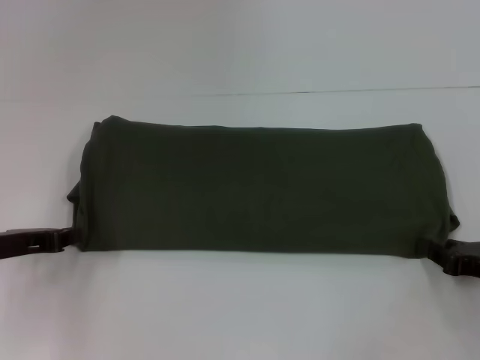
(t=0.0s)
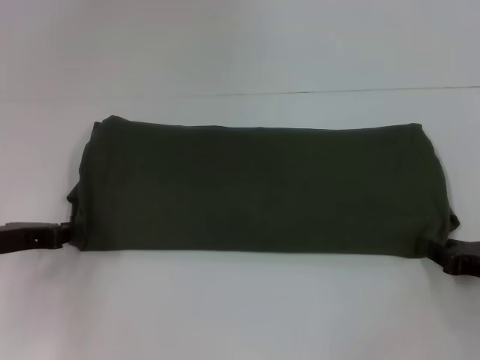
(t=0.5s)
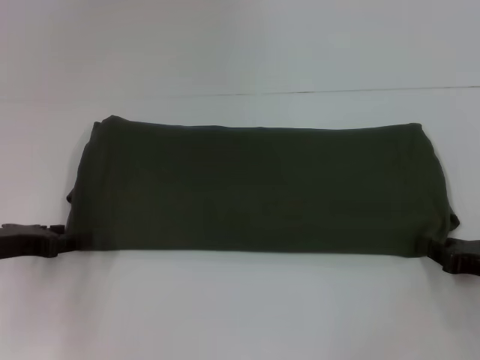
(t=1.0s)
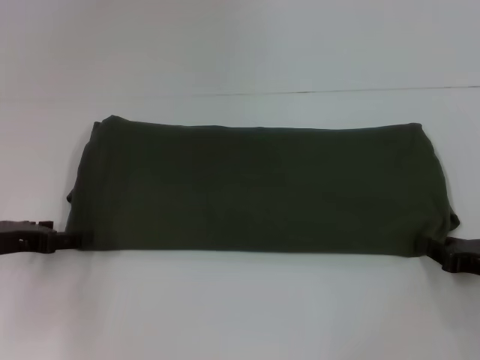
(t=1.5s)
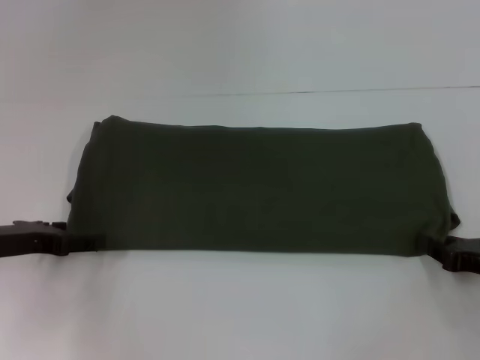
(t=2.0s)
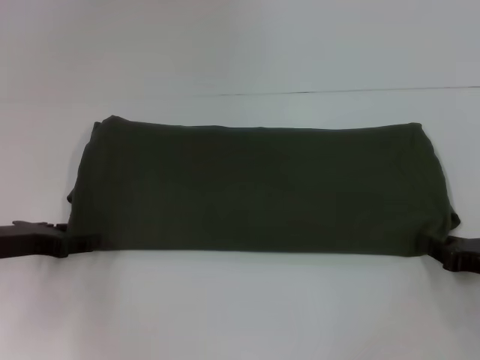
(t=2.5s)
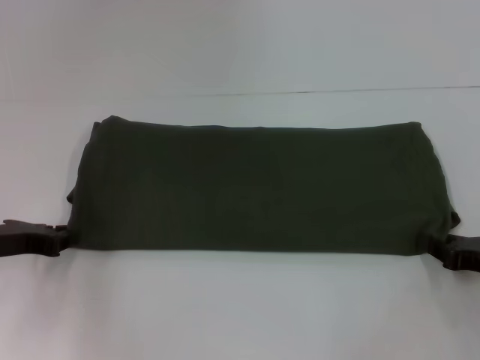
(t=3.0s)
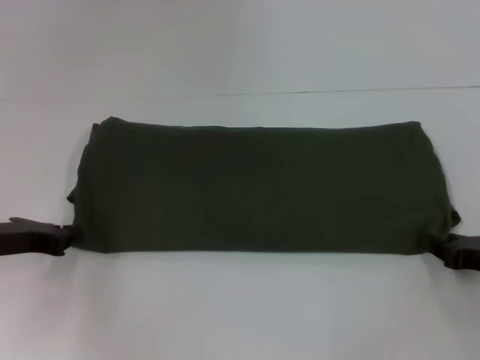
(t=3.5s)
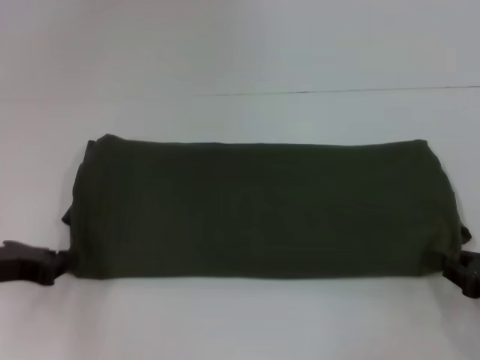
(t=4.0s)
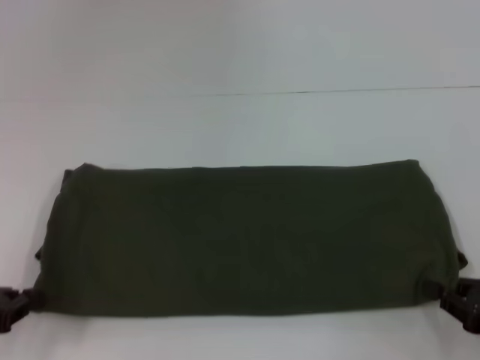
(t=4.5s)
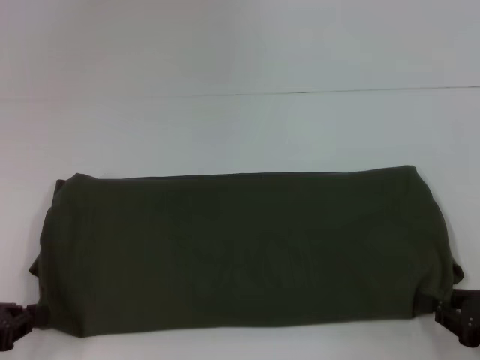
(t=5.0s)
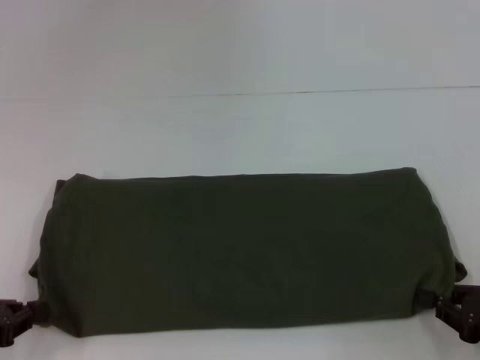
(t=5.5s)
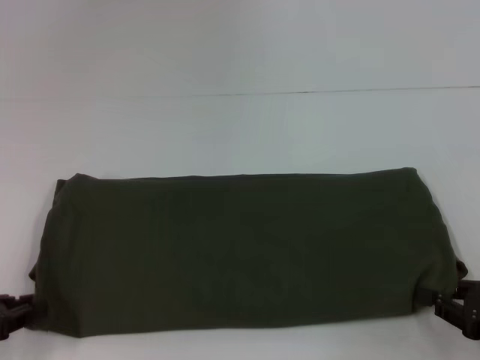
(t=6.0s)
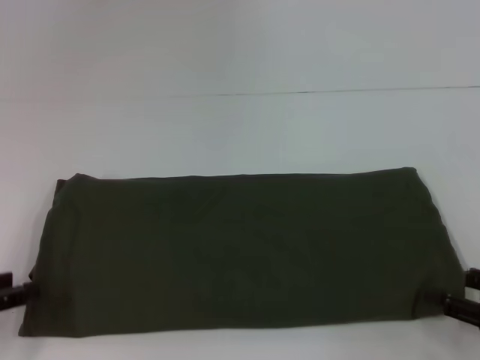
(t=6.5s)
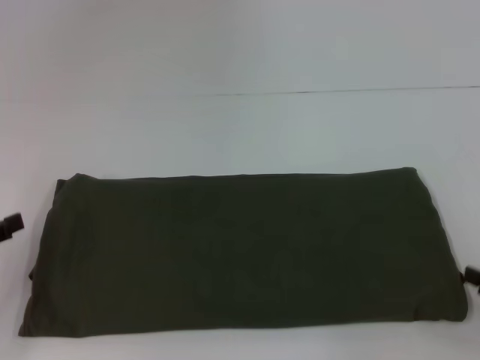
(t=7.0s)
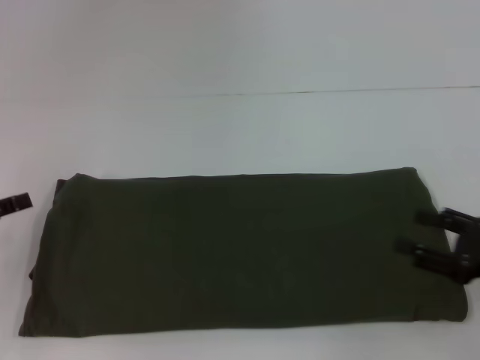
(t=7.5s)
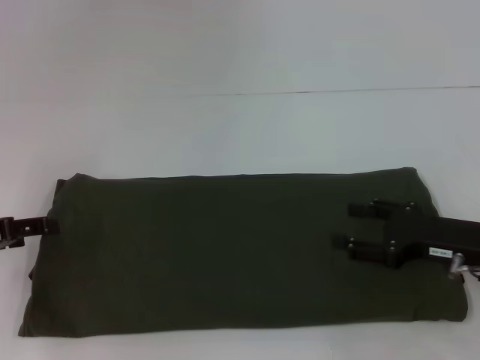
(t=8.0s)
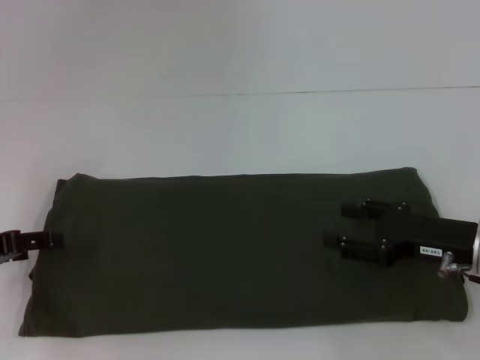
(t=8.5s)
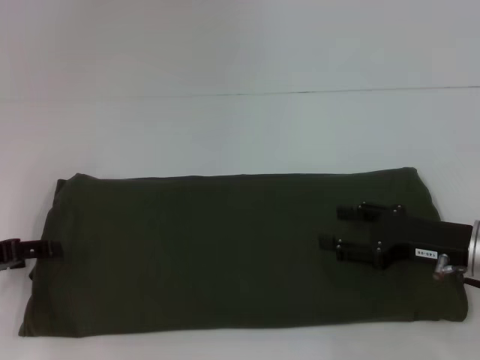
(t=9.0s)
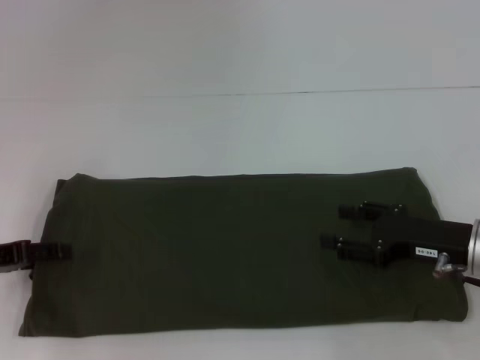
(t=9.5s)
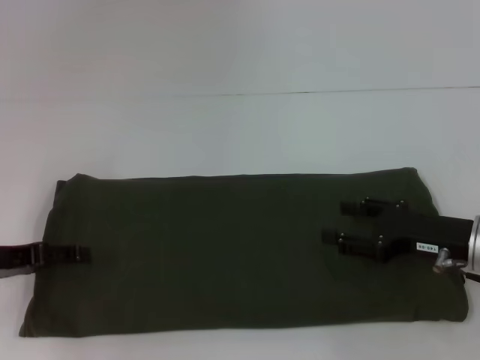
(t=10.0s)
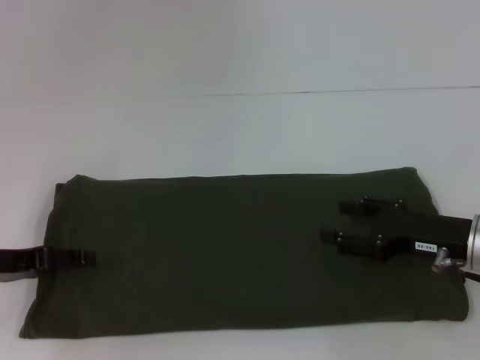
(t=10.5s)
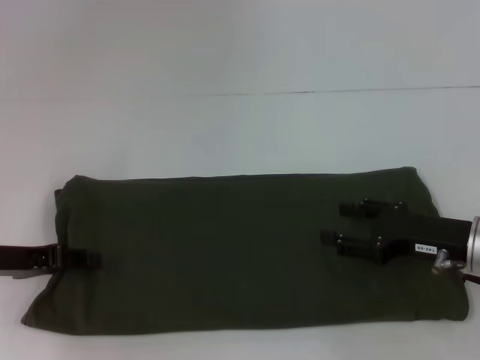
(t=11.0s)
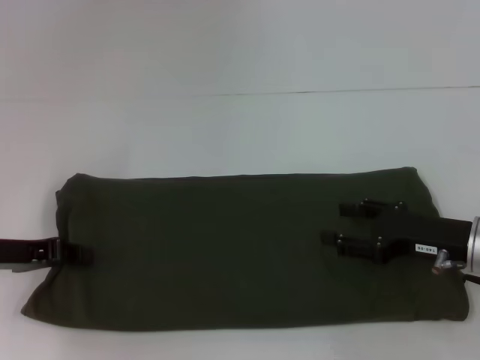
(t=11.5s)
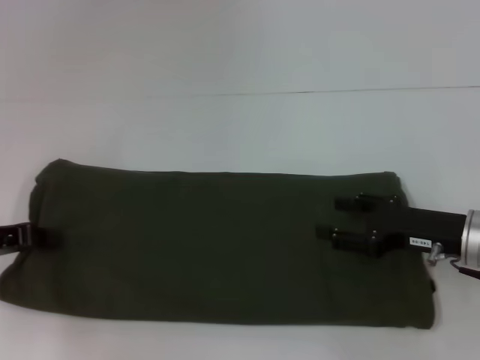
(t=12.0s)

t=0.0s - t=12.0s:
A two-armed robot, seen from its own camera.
t=0.0s - t=2.0s: The left gripper opens.
t=2.0s - t=4.0s: The left gripper closes its fingers.
t=4.0s - t=6.0s: The left gripper is displaced backward by roughly 5 cm.
t=6.0s - t=8.0s: The left gripper travels forward by approximately 5 cm, and opens up. Meanwhile the right gripper moves forward and to the left, about 10 cm, and opens up.
t=8.0s - t=10.0s: The grippers move only a little.
t=10.0s - t=12.0s: The left gripper closes.

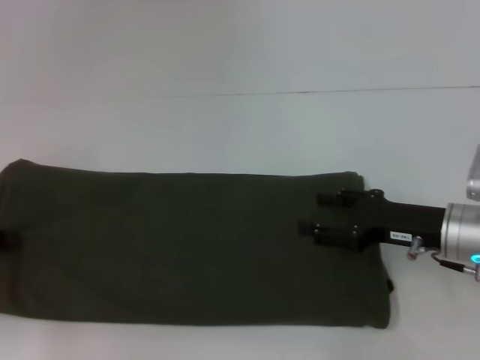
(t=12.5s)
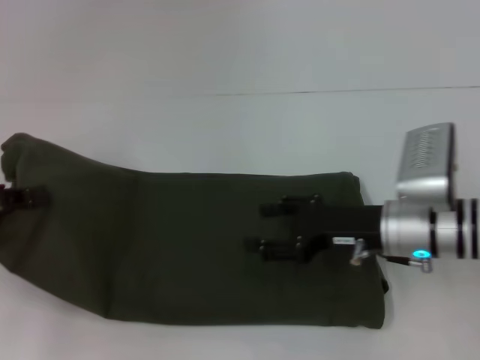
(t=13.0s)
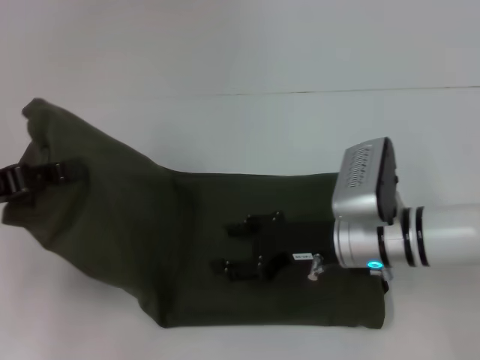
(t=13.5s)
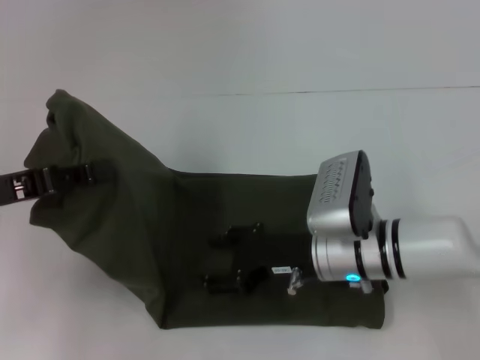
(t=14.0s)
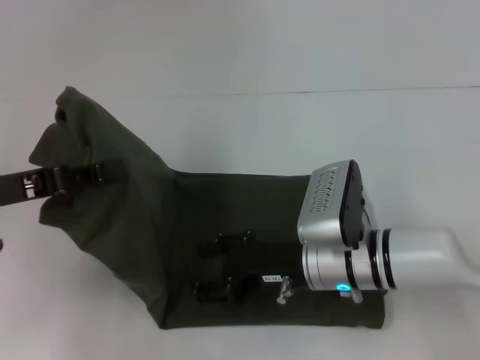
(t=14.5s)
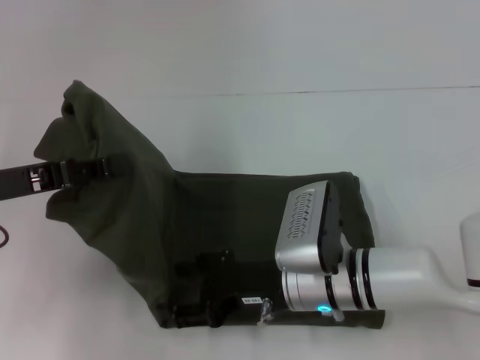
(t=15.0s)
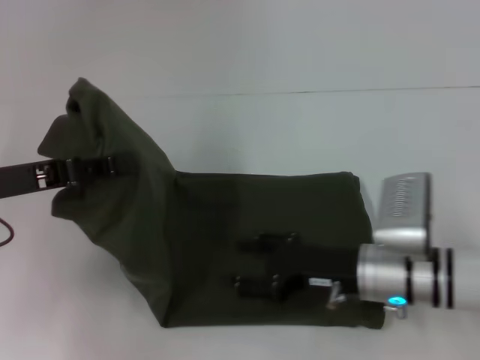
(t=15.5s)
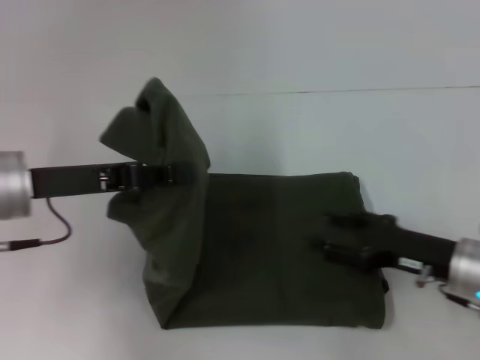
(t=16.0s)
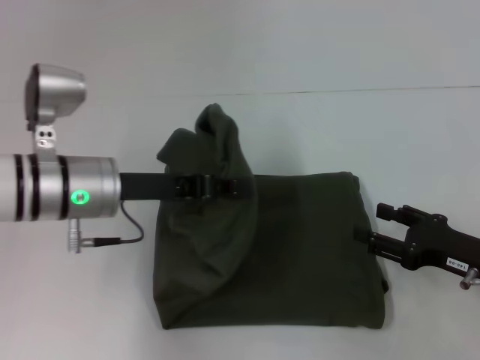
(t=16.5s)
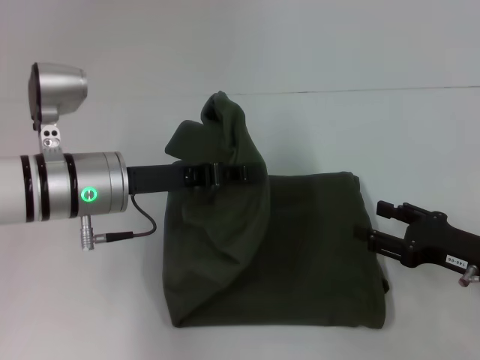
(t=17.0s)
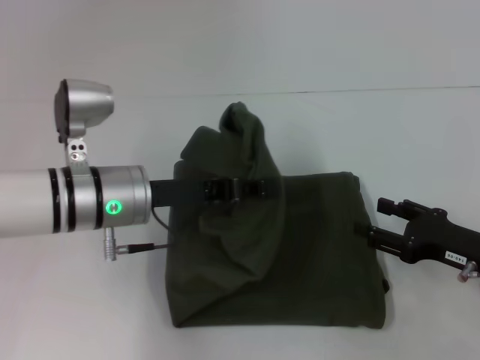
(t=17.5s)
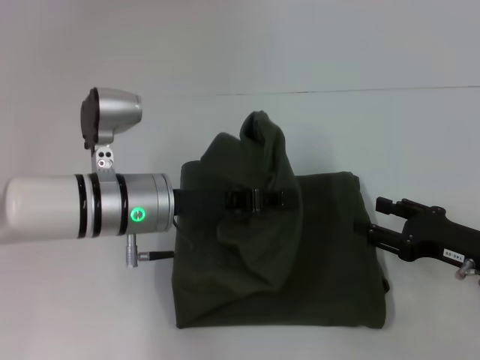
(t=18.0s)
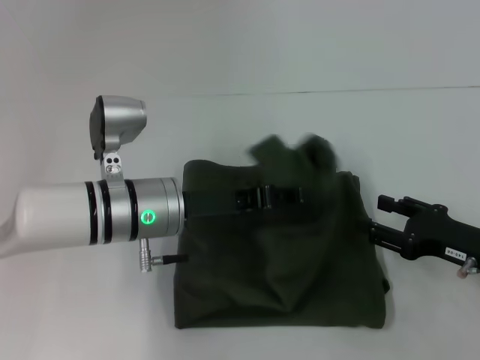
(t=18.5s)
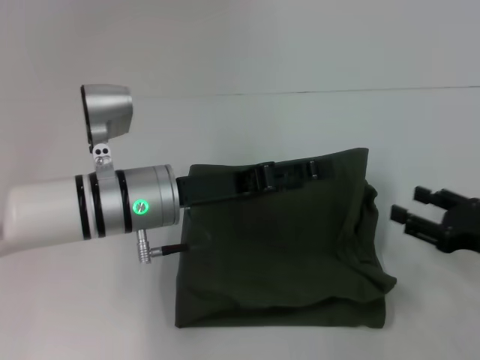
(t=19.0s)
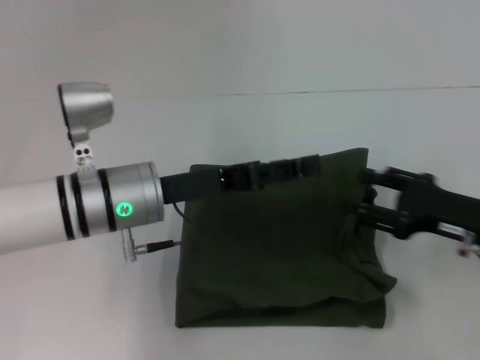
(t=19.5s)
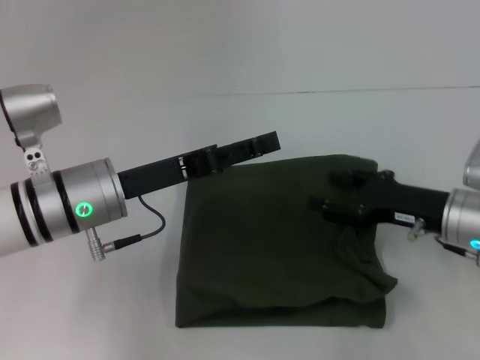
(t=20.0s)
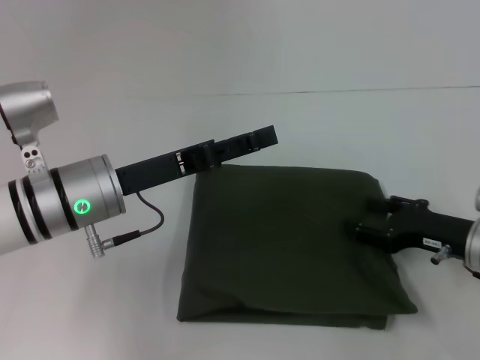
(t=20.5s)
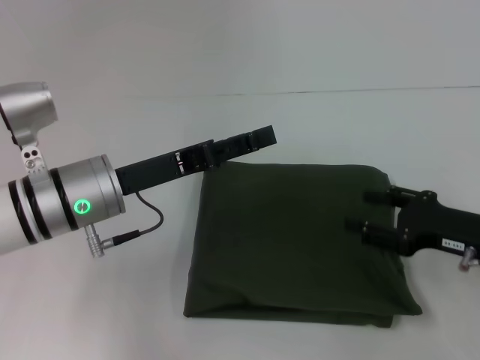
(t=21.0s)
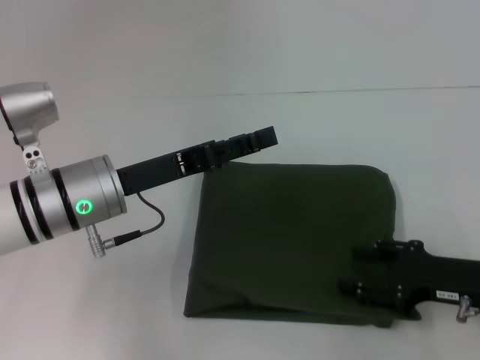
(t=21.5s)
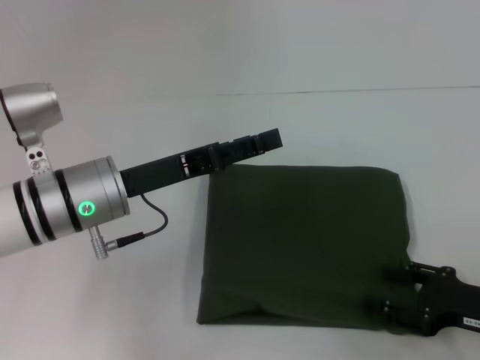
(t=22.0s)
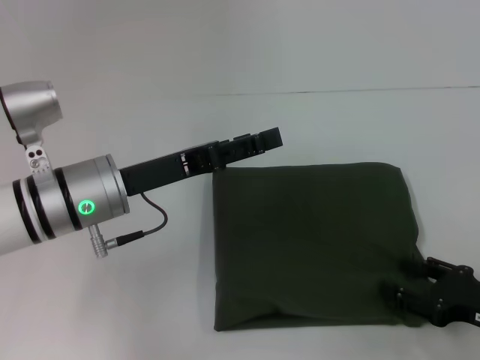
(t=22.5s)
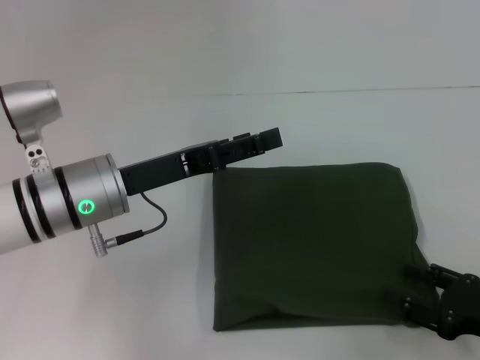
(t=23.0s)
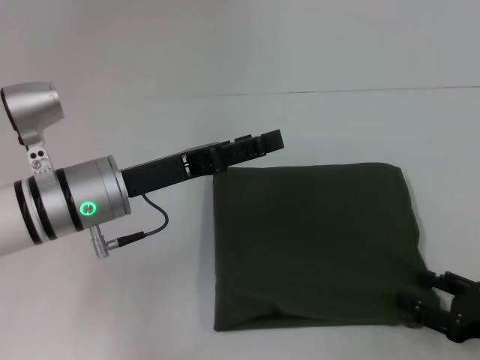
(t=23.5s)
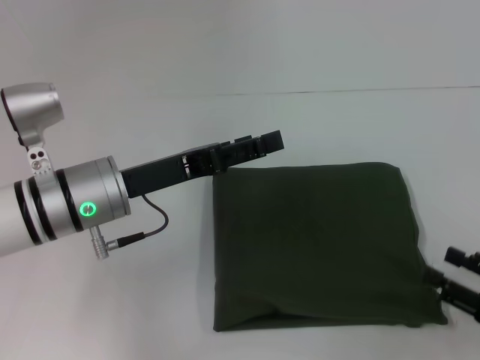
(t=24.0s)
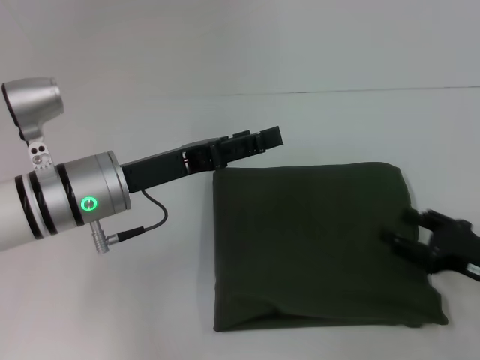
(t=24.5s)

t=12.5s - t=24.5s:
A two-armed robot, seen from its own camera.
Step, t=12.5s - t=19.0s: Fold the clothes with your left hand.
t=12.5s - t=14.5s: The left gripper is displaced to the right by some 5 cm; the right gripper heads to the left, covering about 15 cm.
t=14.5s - t=16.5s: The right gripper goes some 20 cm to the right; the left gripper heads to the right and forward, covering roughly 15 cm.
t=16.5s - t=18.5s: The left gripper goes roughly 5 cm to the right.
t=18.5s - t=20.5s: The left gripper travels to the left by roughly 5 cm, and opens its fingers.
t=20.5s - t=22.5s: The right gripper moves backward, about 10 cm.
t=22.5s - t=24.5s: There are only small adjustments of the grippers.

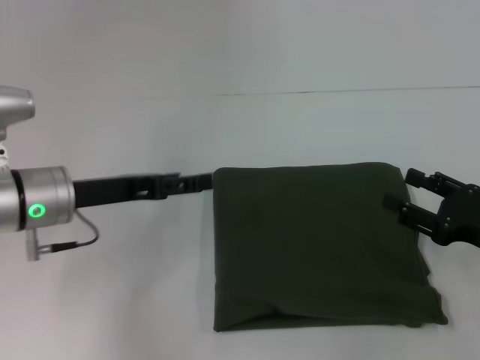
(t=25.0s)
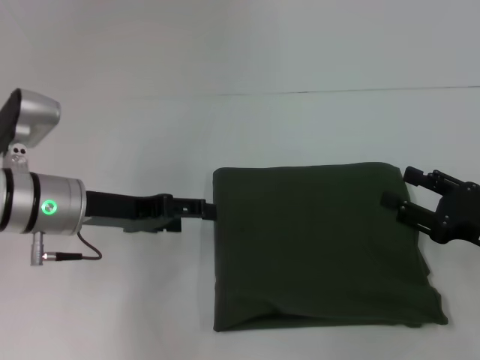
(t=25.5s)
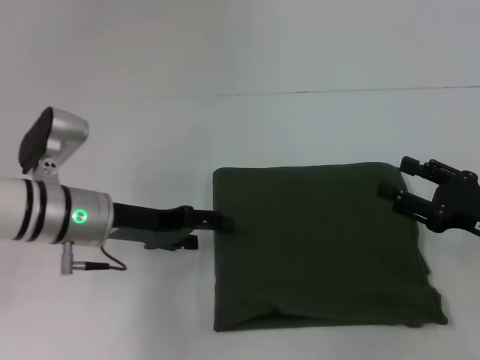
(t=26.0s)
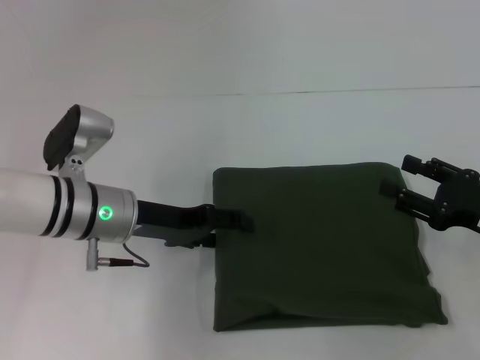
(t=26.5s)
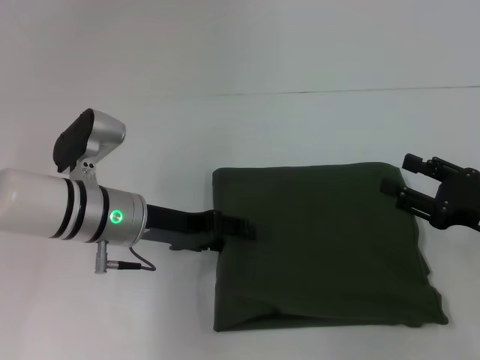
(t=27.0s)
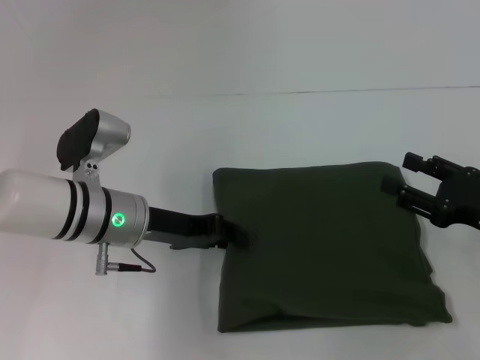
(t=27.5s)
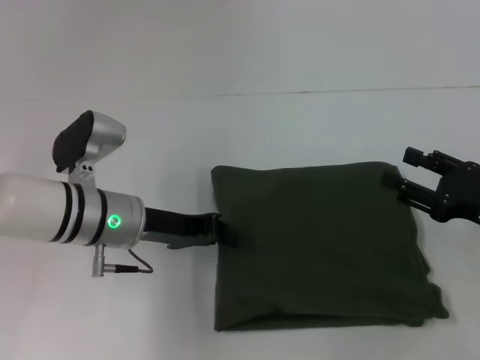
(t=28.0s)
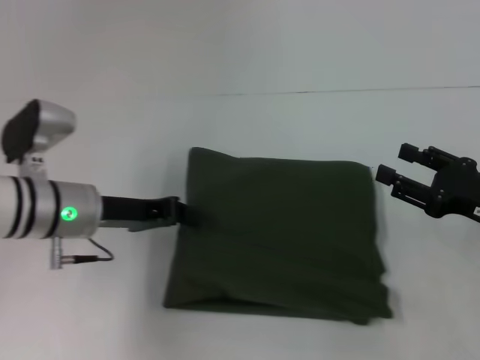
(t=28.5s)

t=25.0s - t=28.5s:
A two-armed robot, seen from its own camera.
t=25.0s - t=27.0s: The left gripper moves to the right, about 5 cm.
t=27.0s - t=28.5s: The left gripper closes its fingers.
